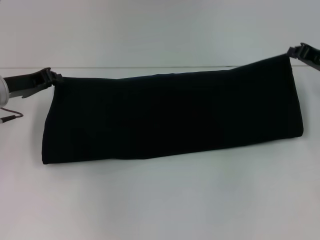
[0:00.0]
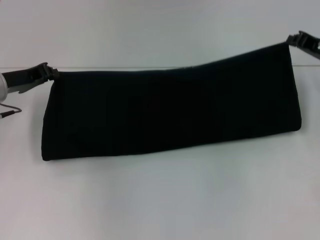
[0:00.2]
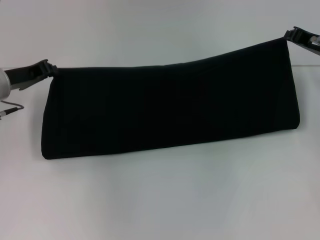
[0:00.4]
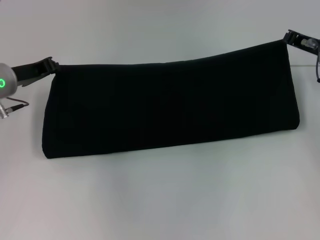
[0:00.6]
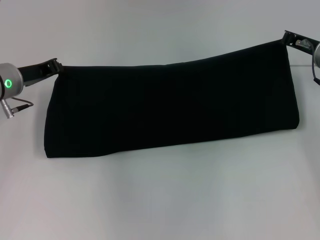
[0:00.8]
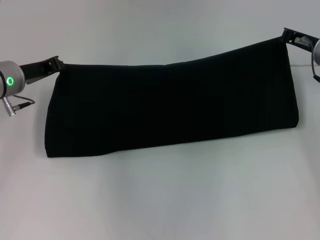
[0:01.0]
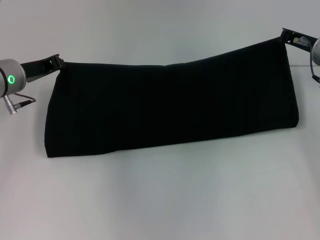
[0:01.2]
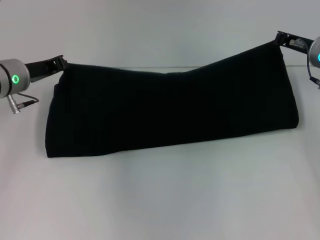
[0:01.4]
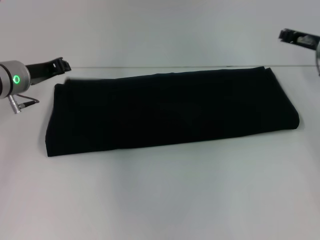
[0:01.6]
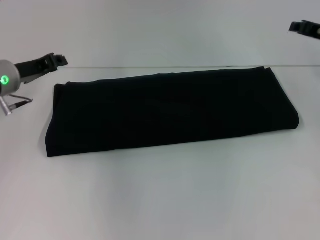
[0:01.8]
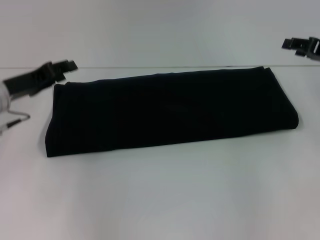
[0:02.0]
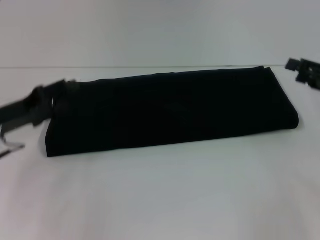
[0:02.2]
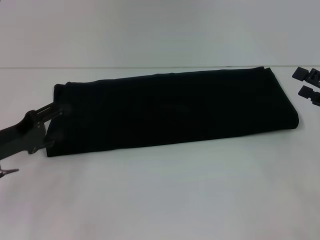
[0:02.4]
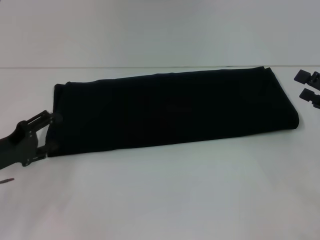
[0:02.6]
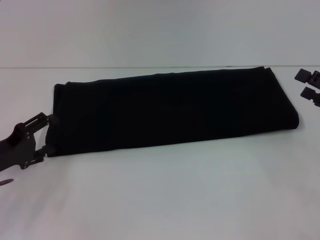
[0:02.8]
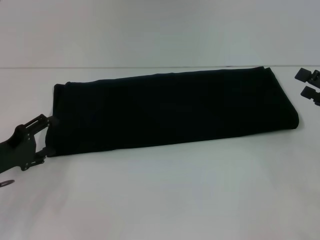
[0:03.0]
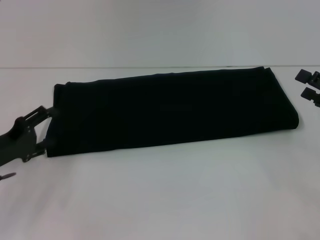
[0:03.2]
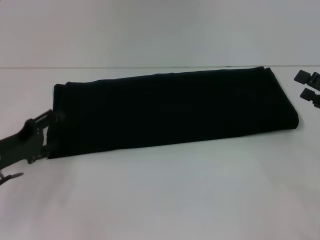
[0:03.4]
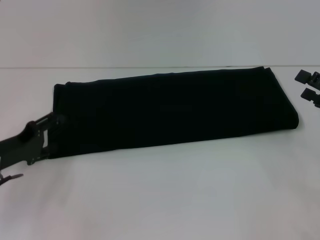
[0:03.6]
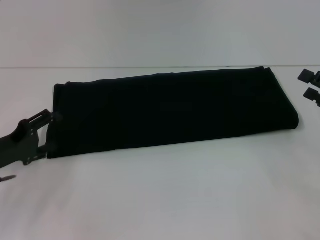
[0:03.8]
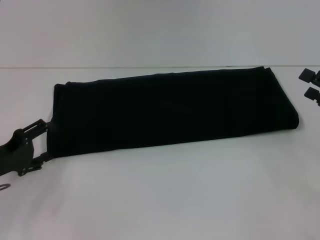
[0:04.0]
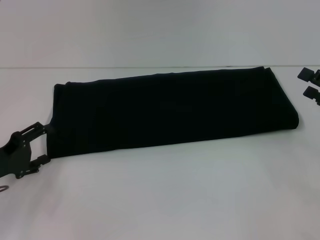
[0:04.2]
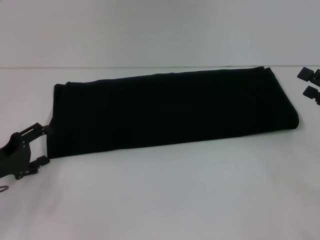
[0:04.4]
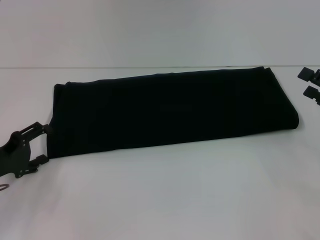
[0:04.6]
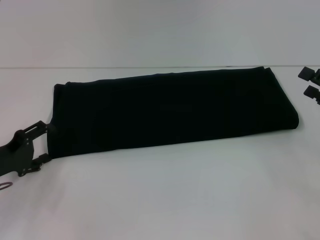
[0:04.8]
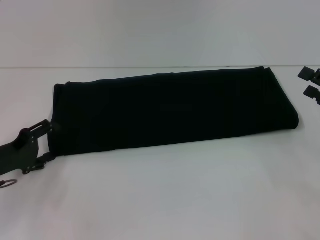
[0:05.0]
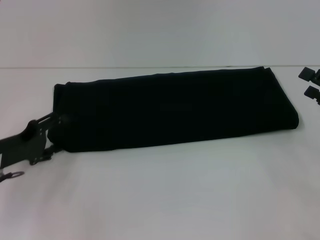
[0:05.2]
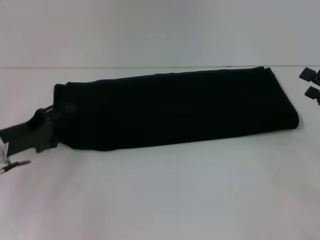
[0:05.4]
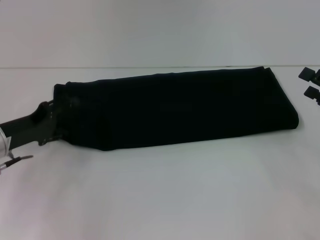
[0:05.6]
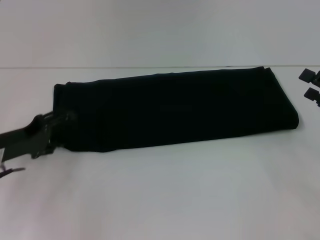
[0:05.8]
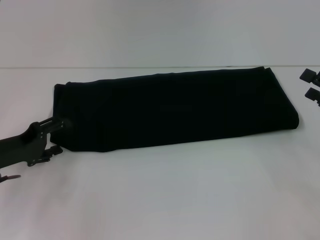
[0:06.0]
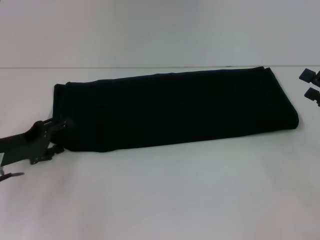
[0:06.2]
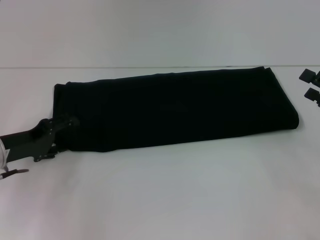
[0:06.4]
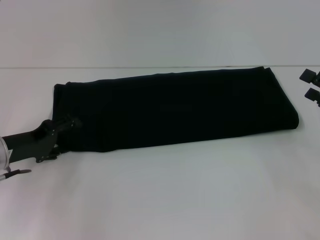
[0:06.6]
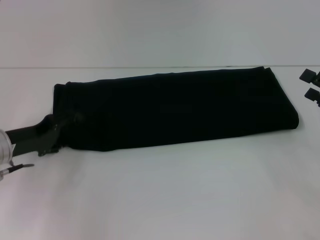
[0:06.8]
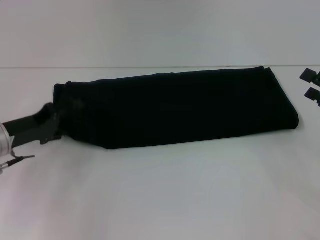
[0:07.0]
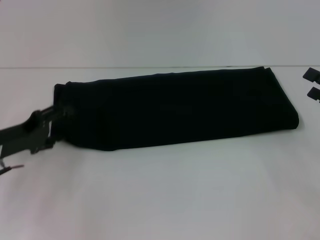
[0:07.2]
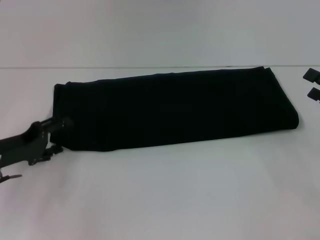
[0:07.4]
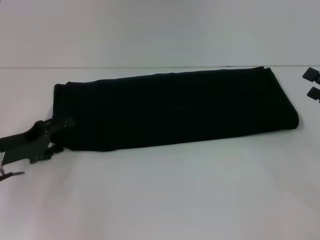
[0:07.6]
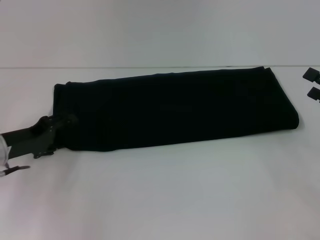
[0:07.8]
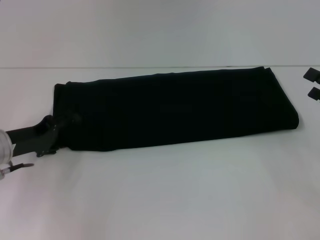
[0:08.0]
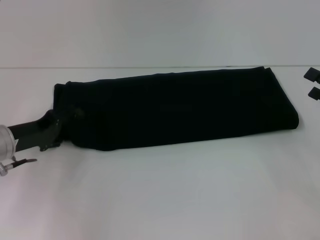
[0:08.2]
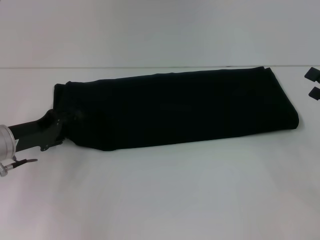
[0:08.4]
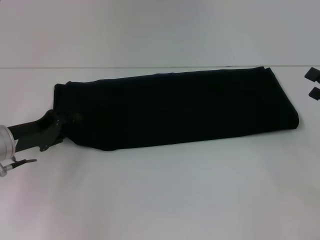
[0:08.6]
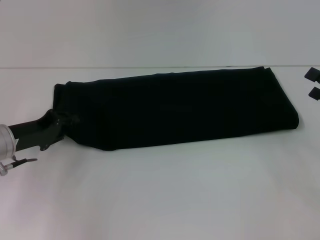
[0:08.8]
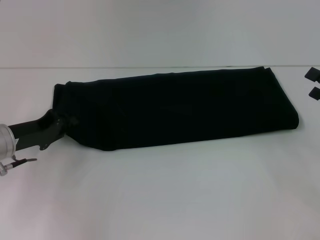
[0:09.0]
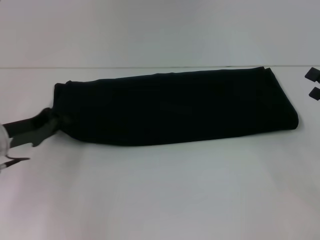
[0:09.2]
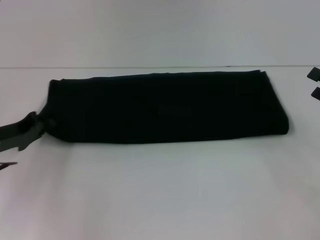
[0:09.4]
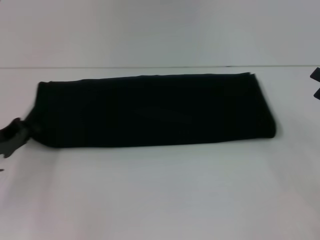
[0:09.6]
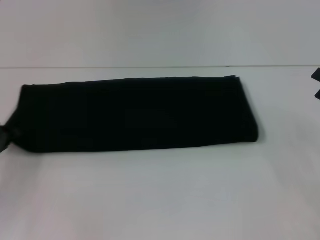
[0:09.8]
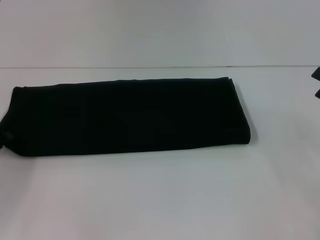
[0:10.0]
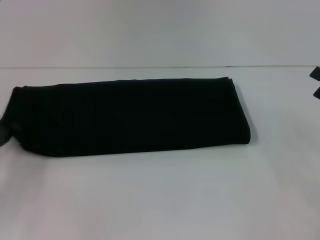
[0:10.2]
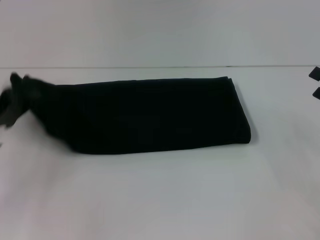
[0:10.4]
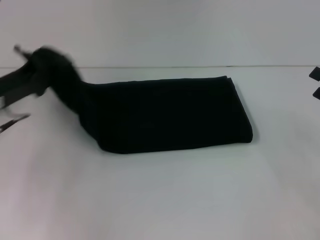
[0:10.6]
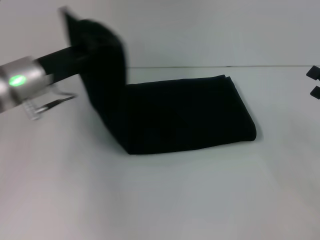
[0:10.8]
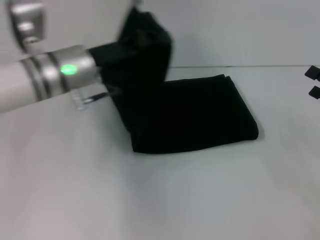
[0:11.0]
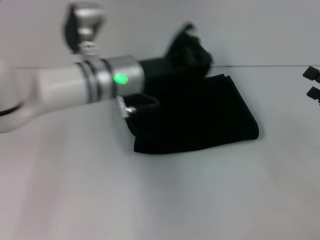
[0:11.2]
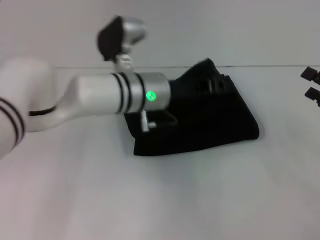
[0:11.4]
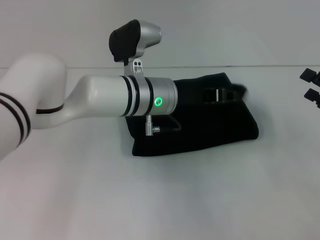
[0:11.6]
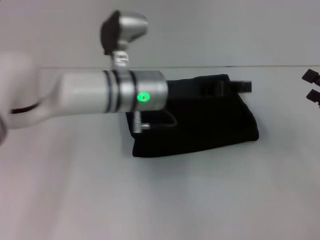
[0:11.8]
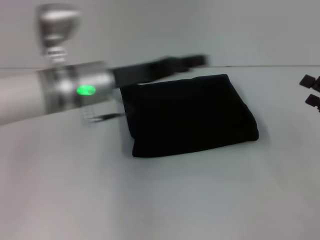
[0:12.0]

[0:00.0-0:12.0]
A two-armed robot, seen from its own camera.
Step, 0:00.0 to 0:01.6: Fold the clothes with your right hand.
Step, 0:00.0 to 0:11.8: Fold the clothes with your left hand.
0:00.0 to 0:01.6: The right gripper ends up approximately 5 cm from where it was.
0:01.6 to 0:03.0: The left gripper moves backward and downward, some 15 cm, and opens its fingers. Meanwhile the right gripper is displaced backward and to the right by approximately 15 cm, and opens up.
0:03.0 to 0:04.4: The grippers move only a little.
0:06.0 to 0:07.6: The grippers stay close to where they were, moving slightly.
0:07.6 to 0:09.0: The left gripper closes up.
0:10.4 to 0:12.0: The left gripper goes some 20 cm to the right, and opens up.

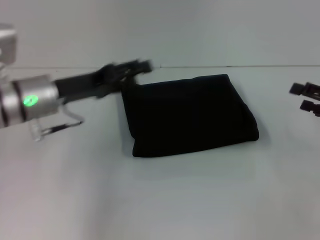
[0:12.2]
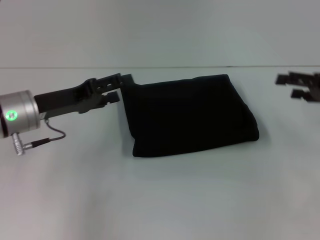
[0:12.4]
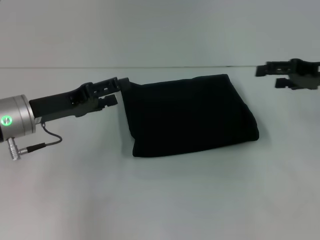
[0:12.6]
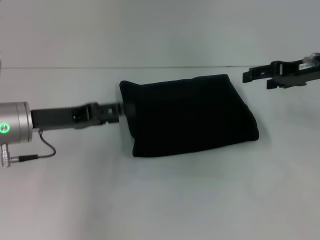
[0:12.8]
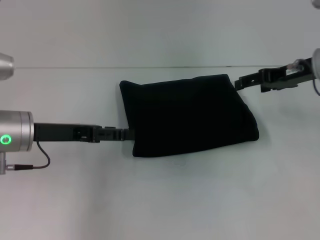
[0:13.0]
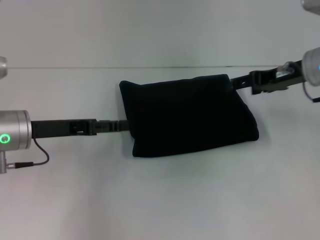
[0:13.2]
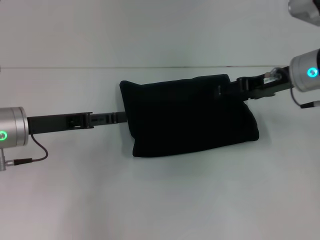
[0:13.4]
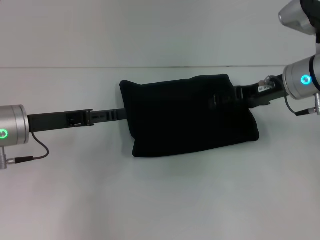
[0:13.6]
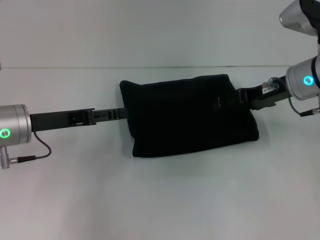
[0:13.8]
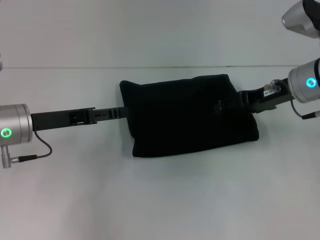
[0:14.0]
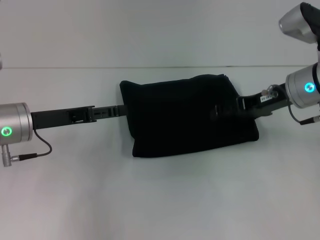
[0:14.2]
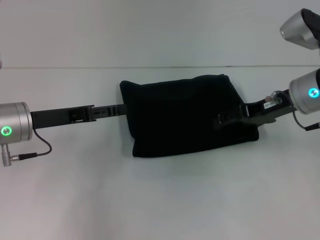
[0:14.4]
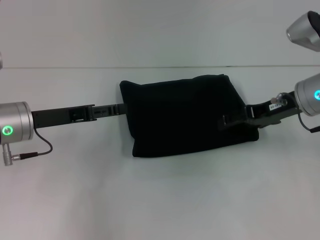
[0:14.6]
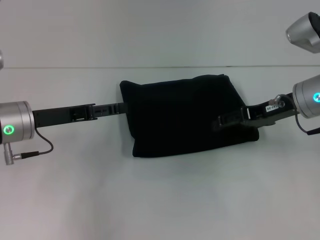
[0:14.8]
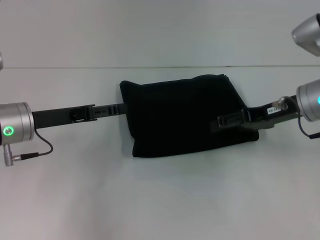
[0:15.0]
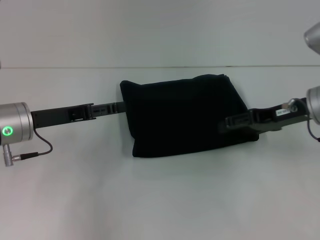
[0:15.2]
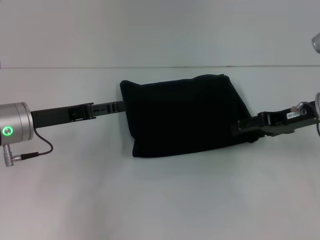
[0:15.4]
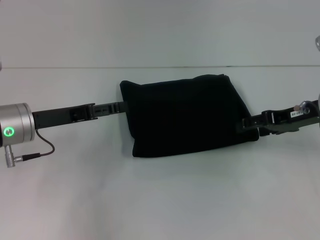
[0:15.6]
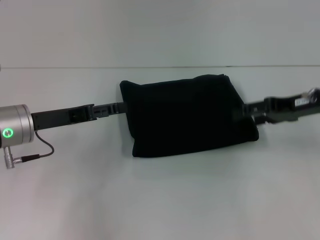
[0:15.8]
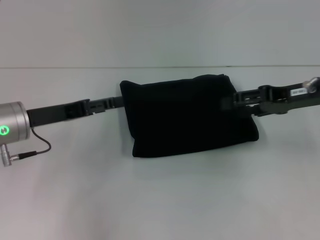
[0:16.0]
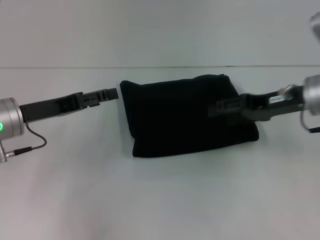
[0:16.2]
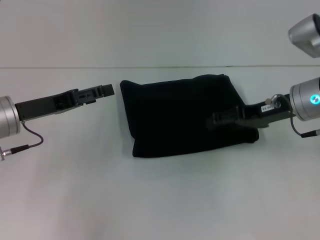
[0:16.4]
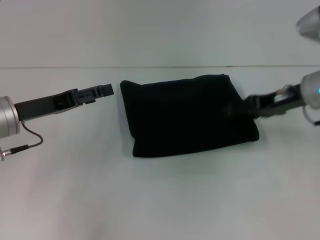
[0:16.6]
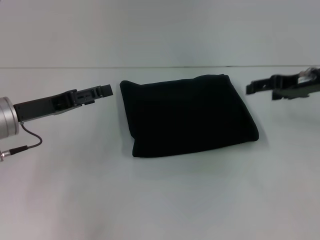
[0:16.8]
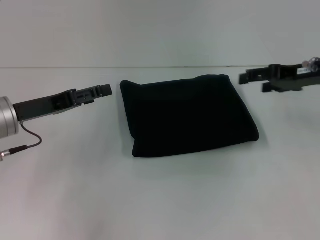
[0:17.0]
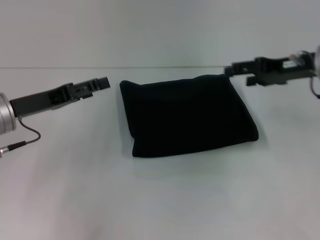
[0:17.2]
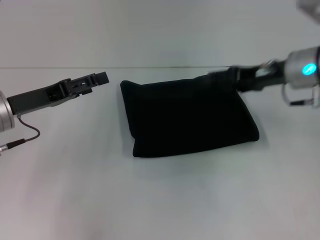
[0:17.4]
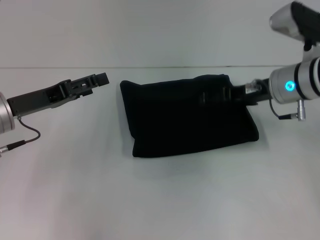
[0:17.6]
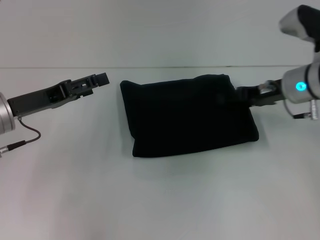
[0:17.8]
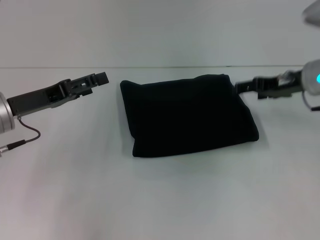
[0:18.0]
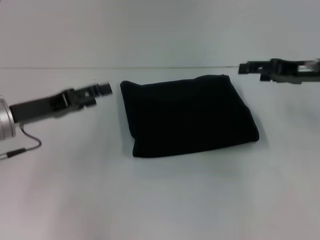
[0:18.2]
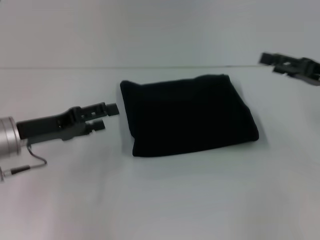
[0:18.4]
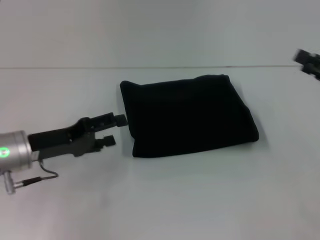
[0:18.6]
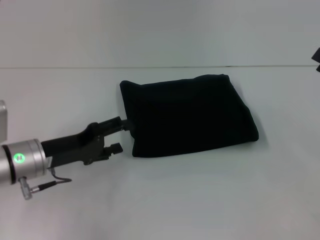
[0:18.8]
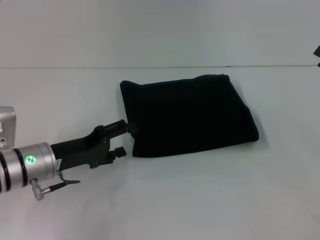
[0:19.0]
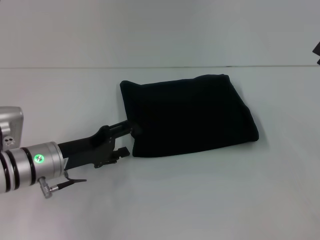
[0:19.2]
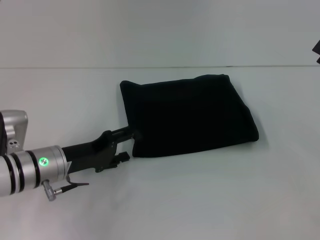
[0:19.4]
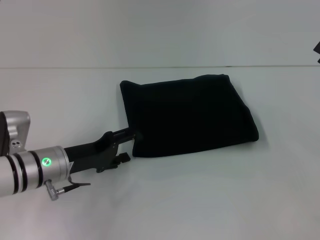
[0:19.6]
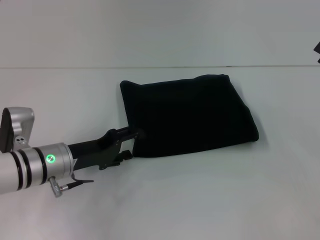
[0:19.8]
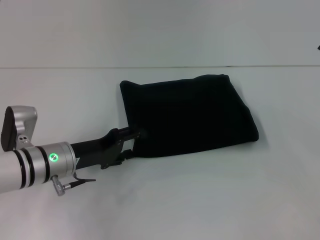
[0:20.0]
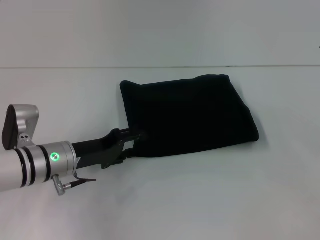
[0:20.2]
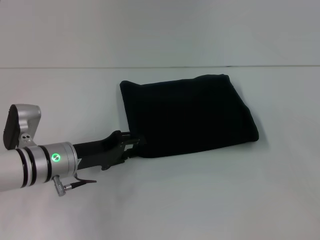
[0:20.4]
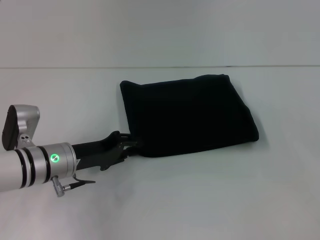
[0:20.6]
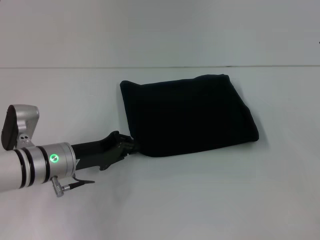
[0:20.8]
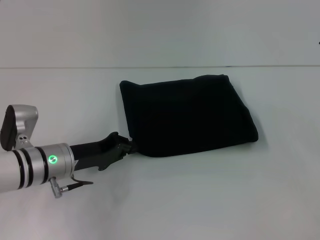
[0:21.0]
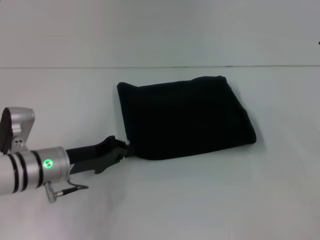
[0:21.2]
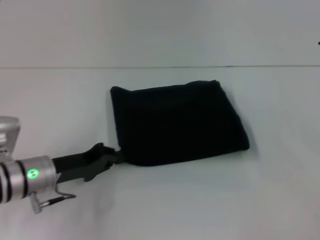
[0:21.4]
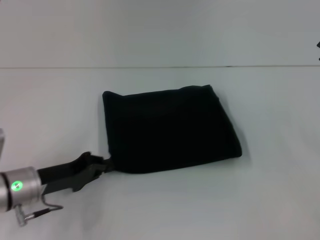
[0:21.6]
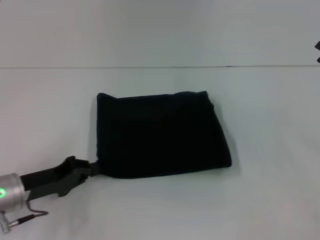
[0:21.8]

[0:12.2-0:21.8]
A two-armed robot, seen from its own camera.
0:12.2 to 0:13.8: The right gripper is displaced to the left and forward by approximately 15 cm.
0:13.8 to 0:15.4: The right gripper ends up roughly 5 cm from where it was.
0:15.4 to 0:17.0: The grippers move only a little.
0:17.0 to 0:18.6: The right gripper heads backward and to the right, covering some 10 cm.
0:18.6 to 0:20.2: The left gripper heads to the right, covering roughly 5 cm.
0:20.2 to 0:21.8: The left gripper travels to the left and backward by approximately 10 cm, and closes.

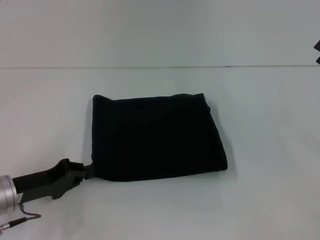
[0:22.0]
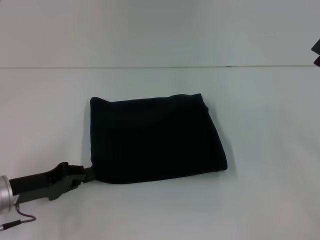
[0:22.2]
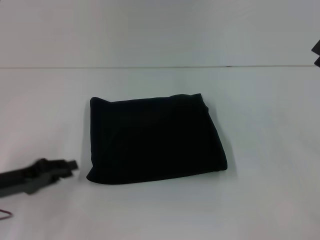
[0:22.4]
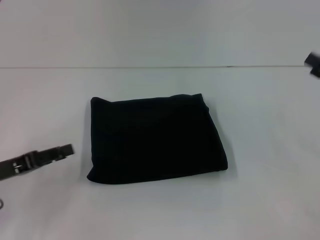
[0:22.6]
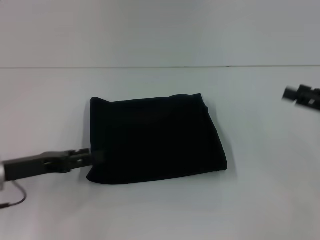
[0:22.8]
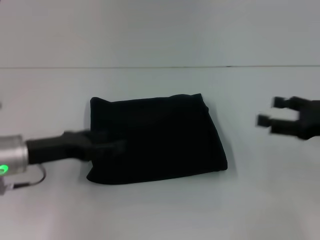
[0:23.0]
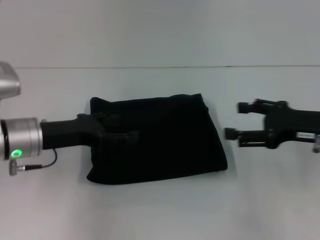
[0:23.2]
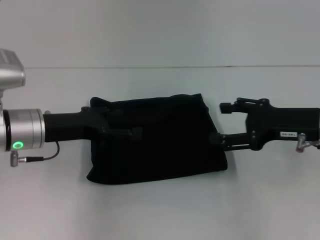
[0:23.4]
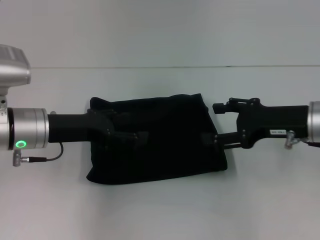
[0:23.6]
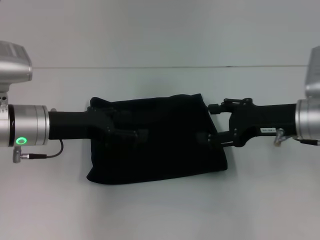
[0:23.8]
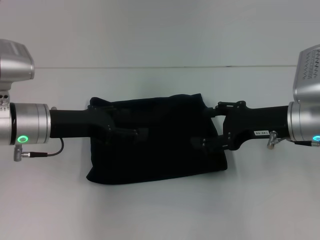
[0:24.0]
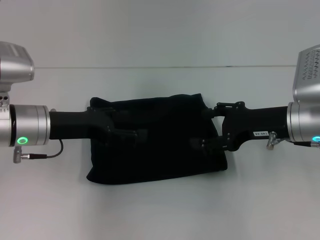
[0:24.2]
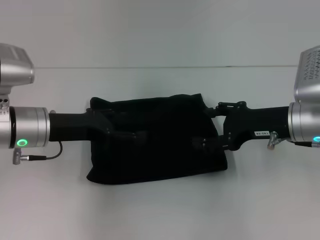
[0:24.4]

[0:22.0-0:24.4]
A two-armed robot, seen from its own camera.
0:22.0 to 0:23.2: The right gripper shifts some 10 cm to the left, while the left gripper is displaced upward and forward by some 10 cm, and opens.
0:23.2 to 0:24.4: The right gripper is displaced to the left by approximately 5 cm.
